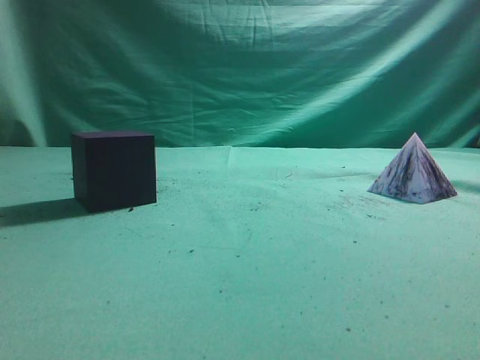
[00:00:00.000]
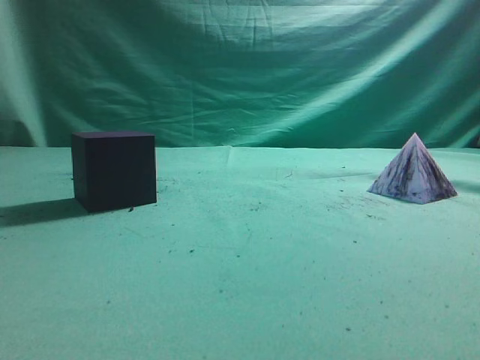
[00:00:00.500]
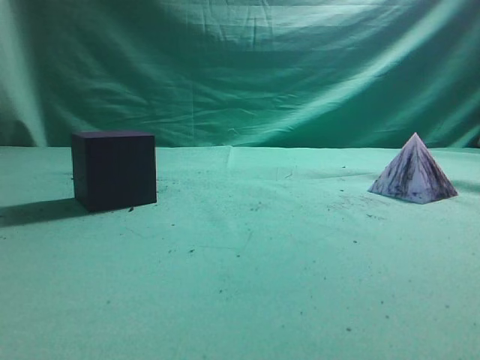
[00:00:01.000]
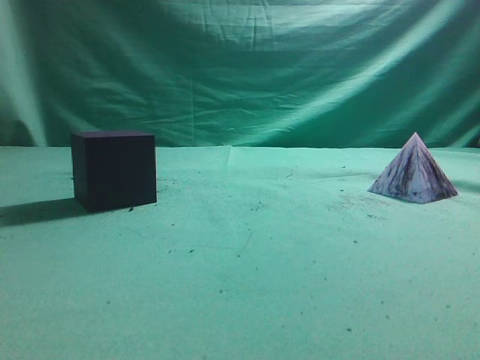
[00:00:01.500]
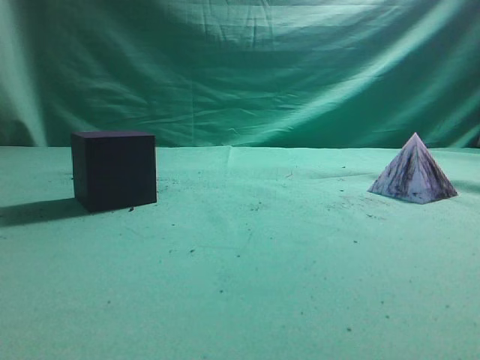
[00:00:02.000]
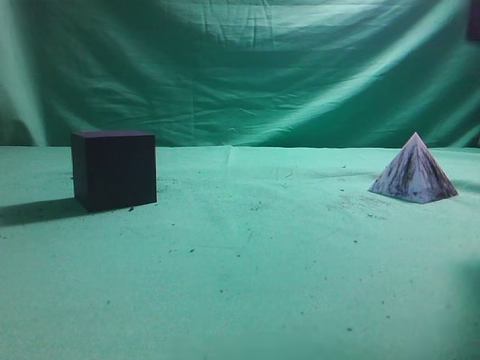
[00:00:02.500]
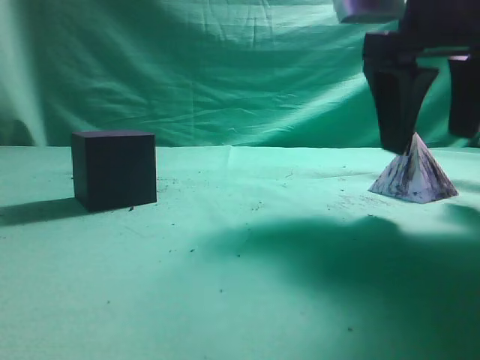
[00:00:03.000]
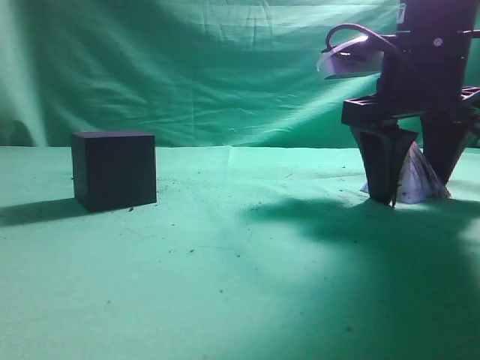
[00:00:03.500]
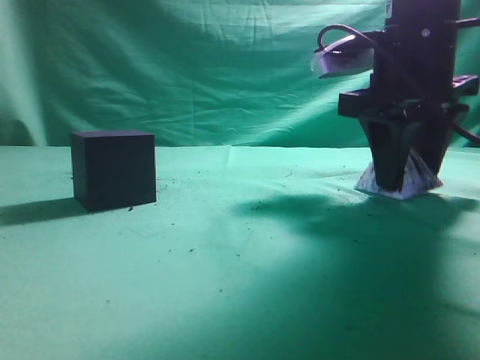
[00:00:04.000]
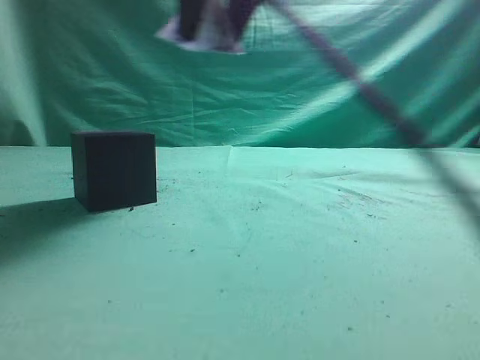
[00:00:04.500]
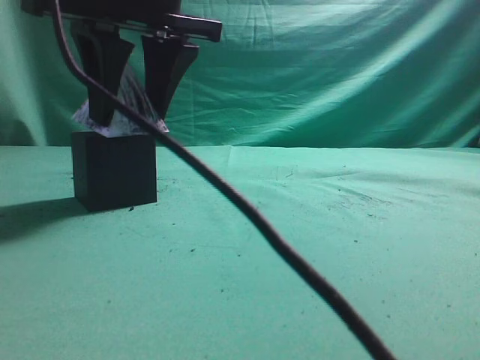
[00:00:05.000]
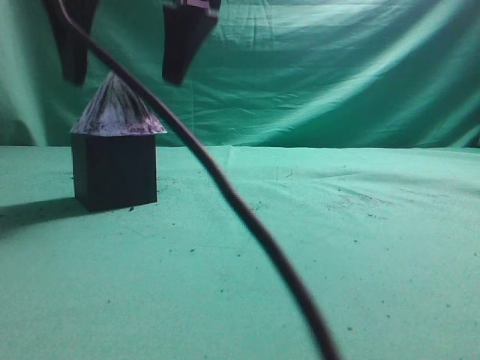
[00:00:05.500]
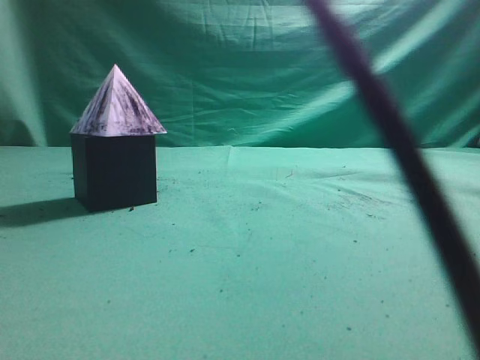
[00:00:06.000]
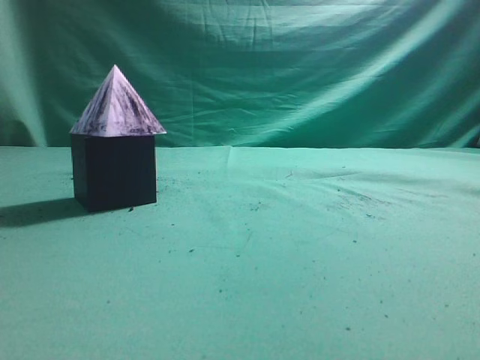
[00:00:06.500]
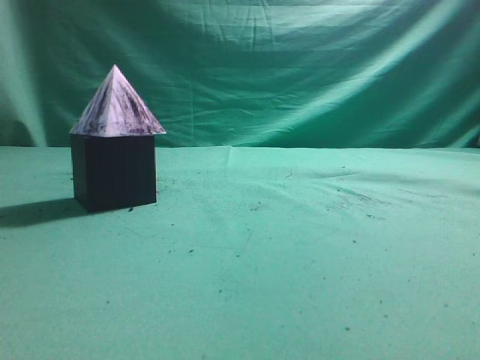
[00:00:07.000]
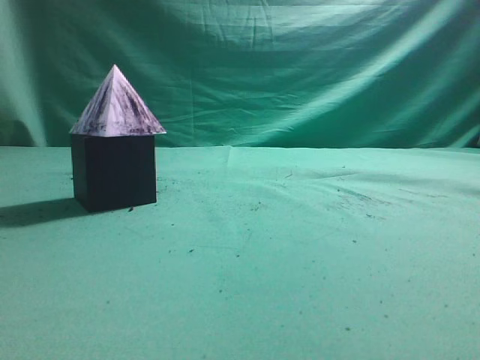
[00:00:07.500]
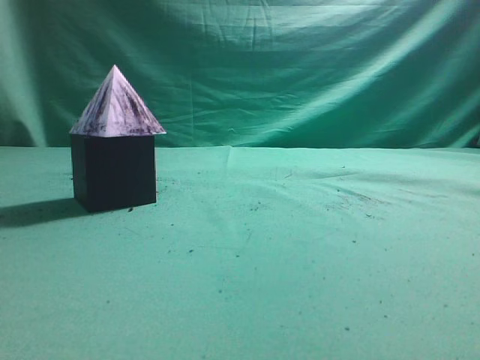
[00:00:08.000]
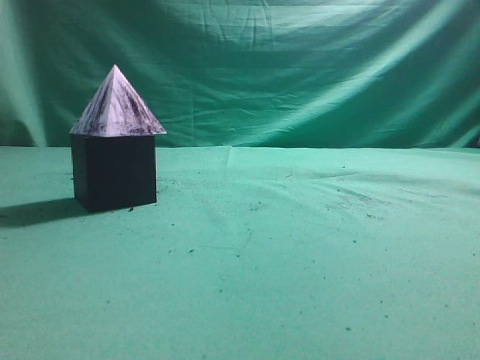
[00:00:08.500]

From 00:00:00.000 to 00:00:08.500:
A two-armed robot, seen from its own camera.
Task of the whole recording: pick up the square pyramid from the table and place it on the cube block.
Step, from 00:00:00.000 to 00:00:04.000: Grasp the triangular block.
Step, from 00:00:04.500 to 00:00:05.500: Place the block onto the cube-shaped block.
From 00:00:02.000 to 00:00:04.000: The right gripper moves forward, downward and to the left, some 30 cm, and opens up.
From 00:00:04.000 to 00:00:06.500: The right gripper moves up and down over roughly 25 cm, changing direction 2 times, and closes its fingers.
